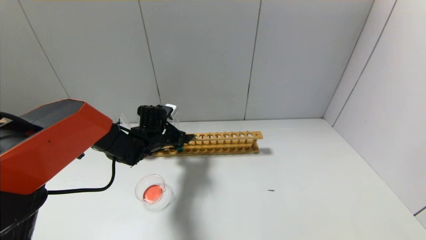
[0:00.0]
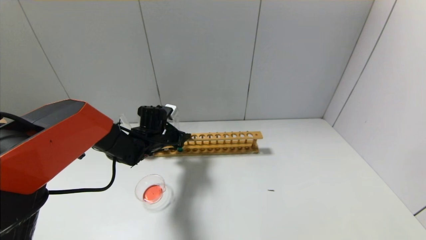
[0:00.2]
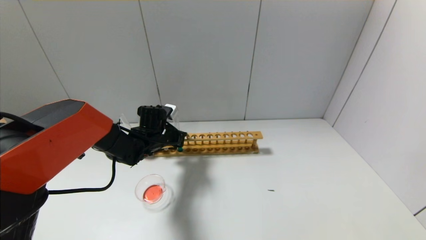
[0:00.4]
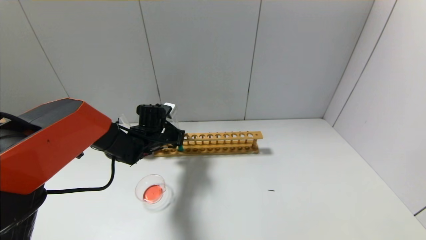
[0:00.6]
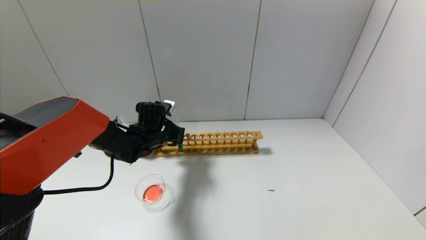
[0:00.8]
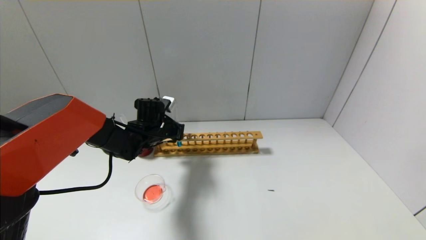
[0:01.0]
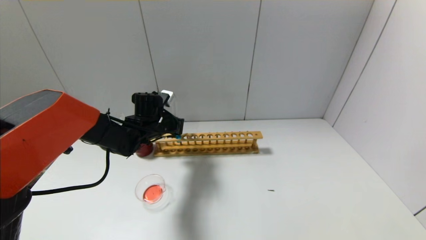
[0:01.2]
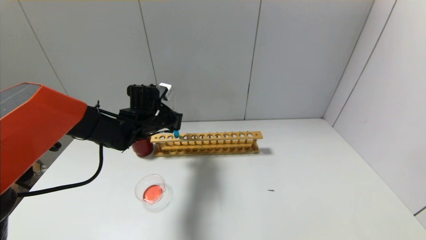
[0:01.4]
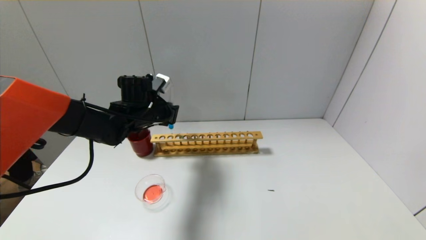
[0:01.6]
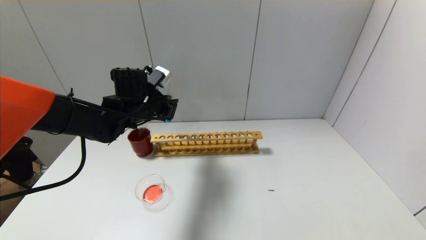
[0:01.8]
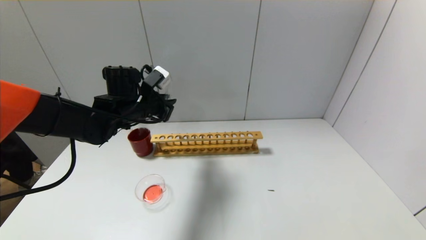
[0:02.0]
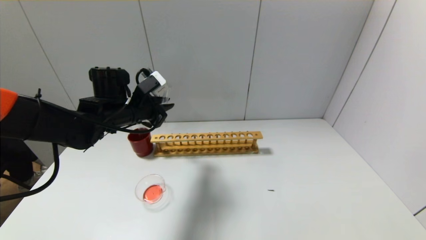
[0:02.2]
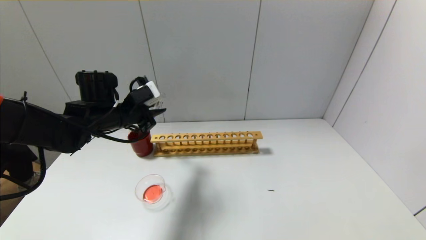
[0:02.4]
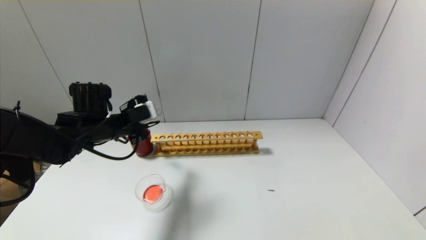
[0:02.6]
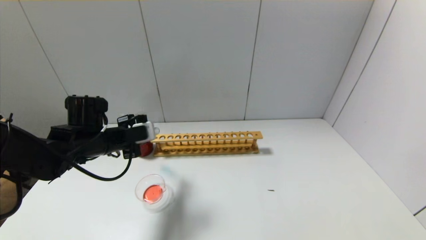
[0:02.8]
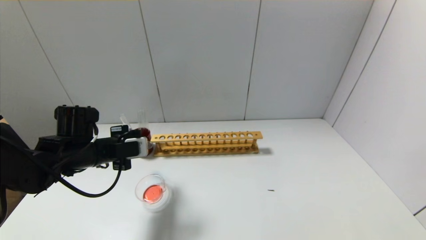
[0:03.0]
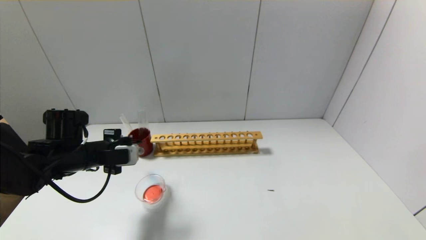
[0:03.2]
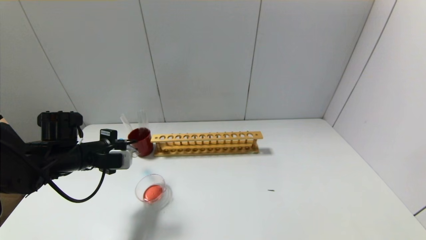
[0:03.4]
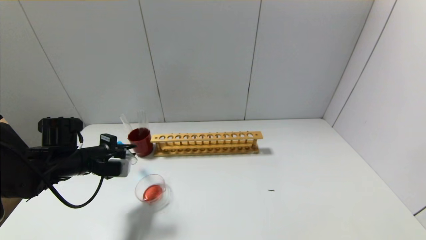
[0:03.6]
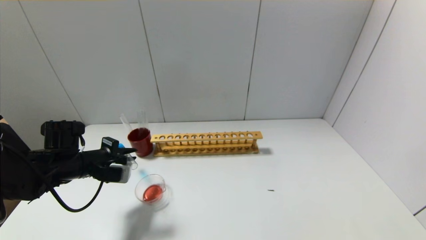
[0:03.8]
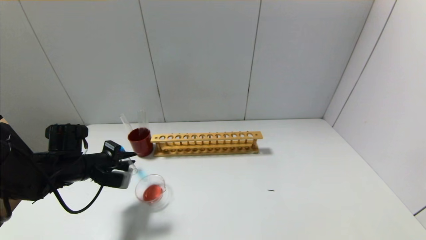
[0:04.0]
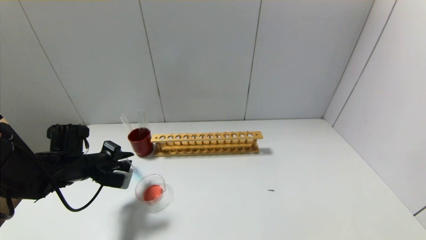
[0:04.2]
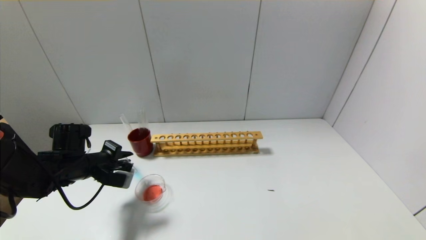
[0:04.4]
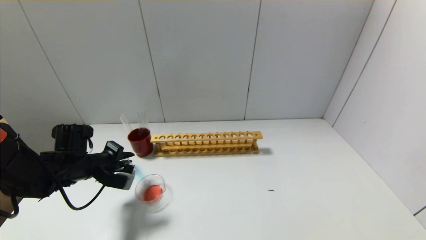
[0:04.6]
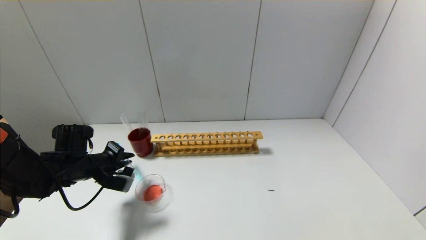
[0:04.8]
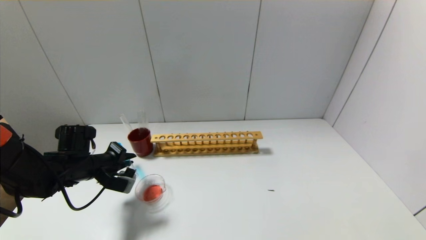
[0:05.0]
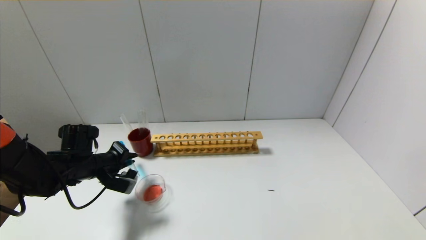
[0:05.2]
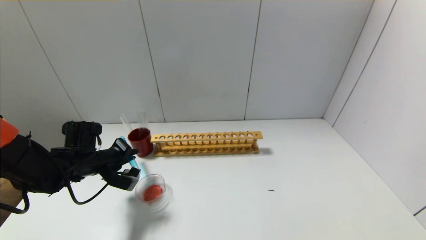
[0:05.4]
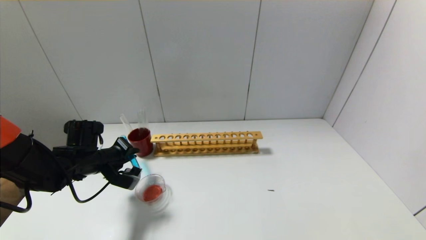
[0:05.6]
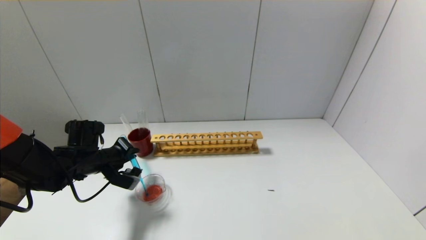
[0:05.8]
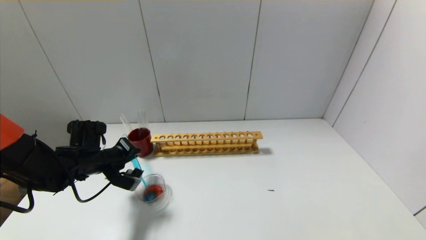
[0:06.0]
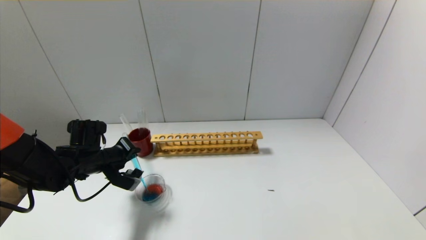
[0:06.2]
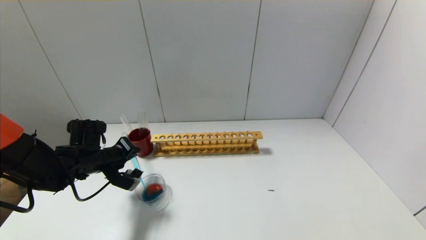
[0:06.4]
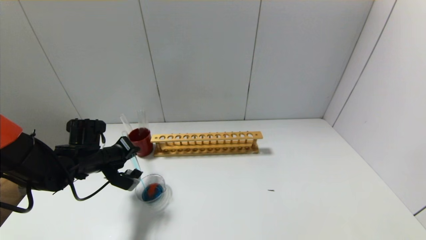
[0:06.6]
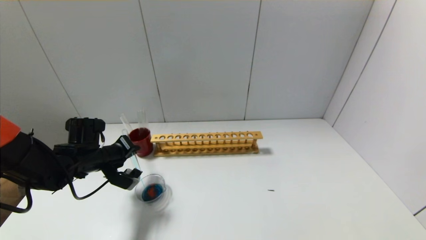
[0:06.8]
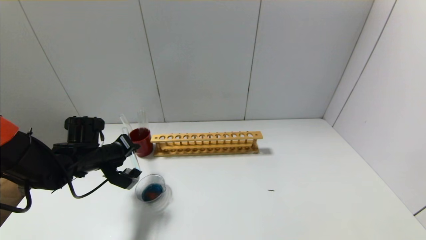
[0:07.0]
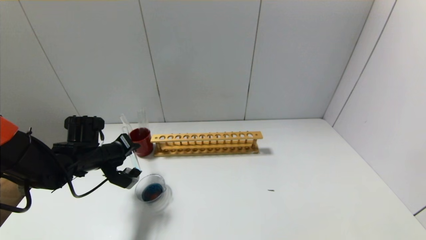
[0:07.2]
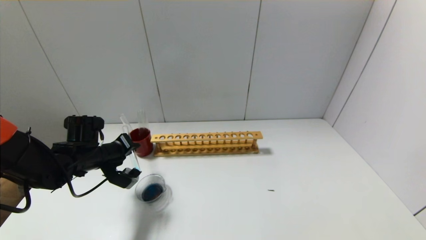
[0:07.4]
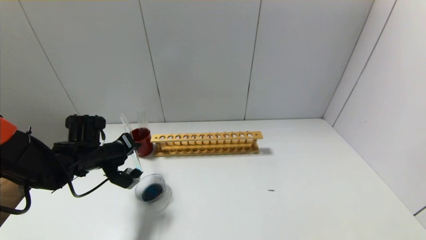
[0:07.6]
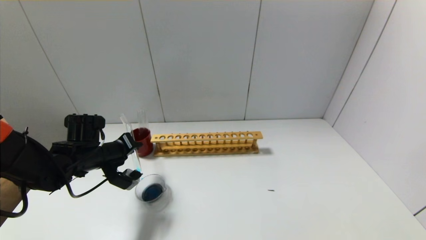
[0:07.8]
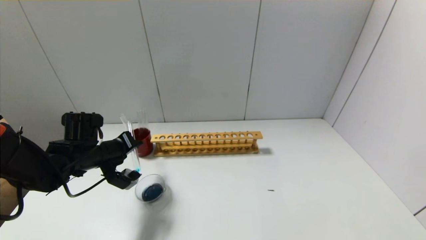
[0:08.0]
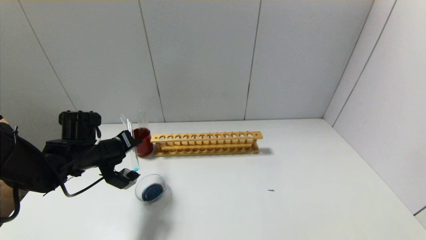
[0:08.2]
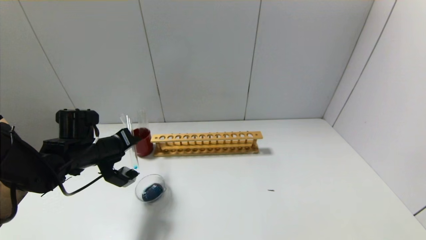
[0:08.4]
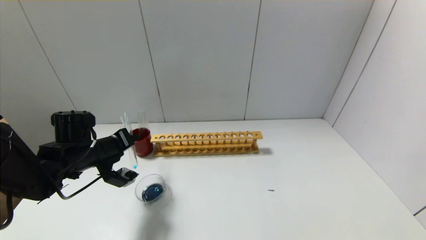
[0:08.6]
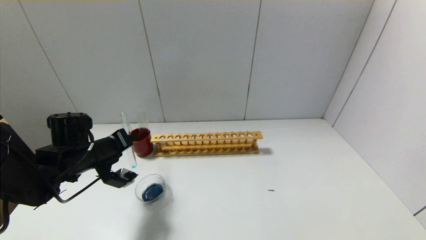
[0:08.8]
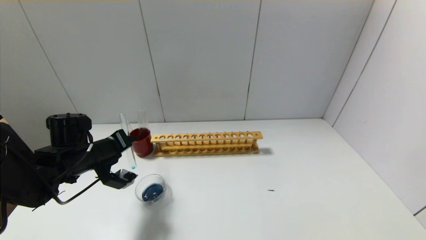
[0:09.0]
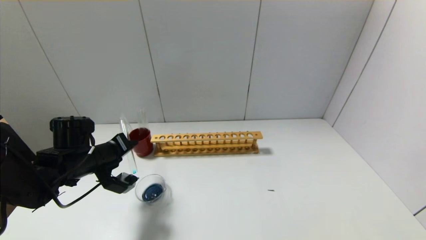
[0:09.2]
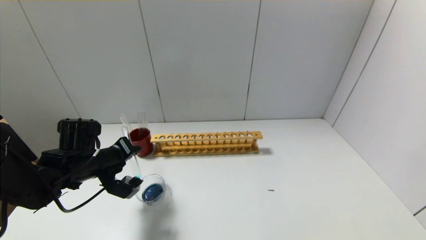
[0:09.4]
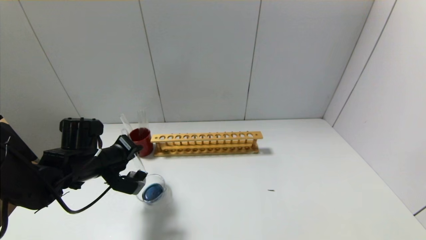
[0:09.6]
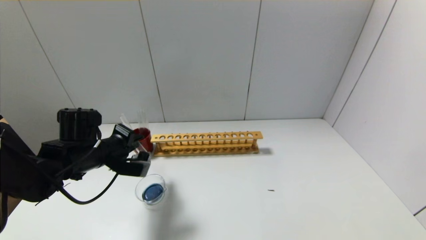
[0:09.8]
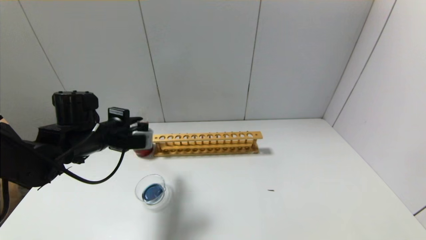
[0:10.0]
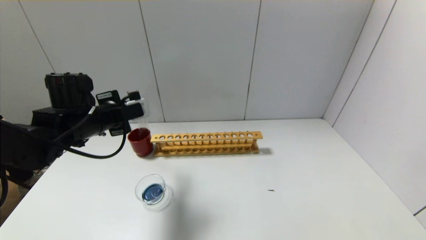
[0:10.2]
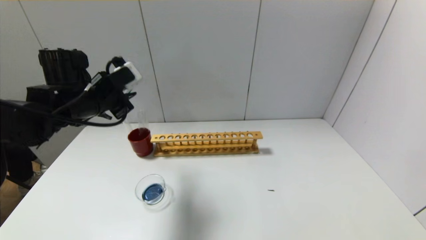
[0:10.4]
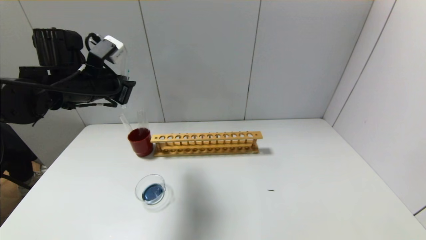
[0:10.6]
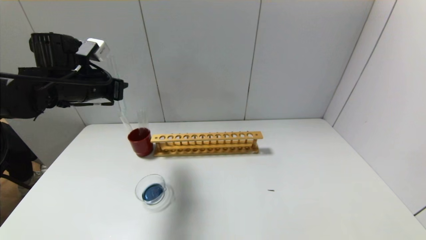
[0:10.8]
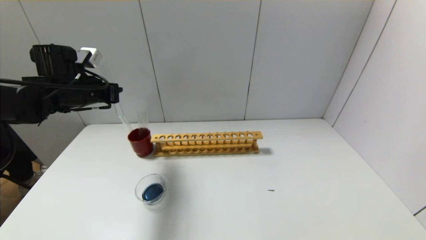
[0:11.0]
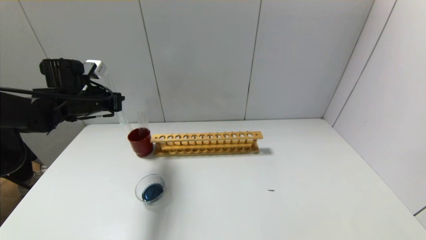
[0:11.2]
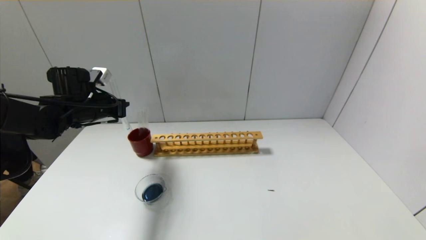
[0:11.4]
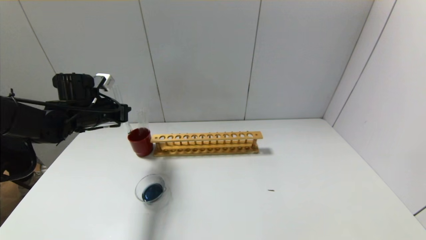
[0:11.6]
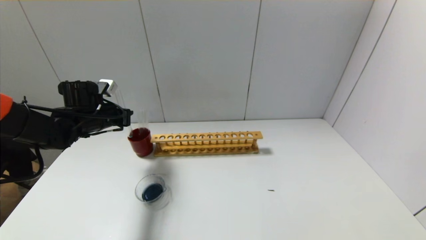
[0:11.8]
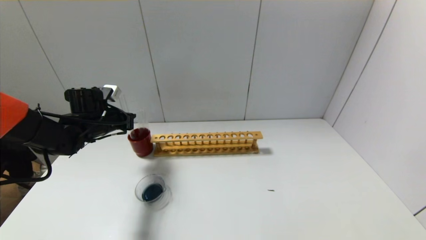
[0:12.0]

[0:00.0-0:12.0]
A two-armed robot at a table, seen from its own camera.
Step, 0:00.8 to 0:09.8: Pour the blue reagent into the graduated cylinder with the left gripper.
0:00.0 to 0:01.6: The left gripper heads upward, covering about 10 cm, and closes its fingers.
0:01.6 to 0:03.0: The left gripper heads backward and to the left, covering some 15 cm.
0:03.0 to 0:04.4: The left gripper travels downward by about 5 cm.
0:04.4 to 0:06.0: The grippers make only small movements.
0:06.0 to 0:07.6: The grippers move only a little.
0:07.6 to 0:09.0: The grippers stay close to where they were, moving slightly.
0:09.0 to 0:10.4: The left gripper shifts about 15 cm upward.
0:10.4 to 0:12.0: The left gripper moves downward and forward, about 15 cm.

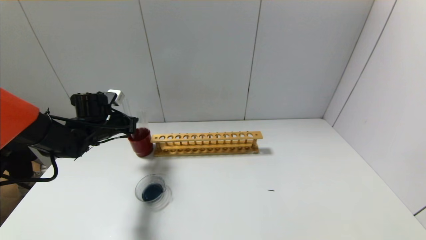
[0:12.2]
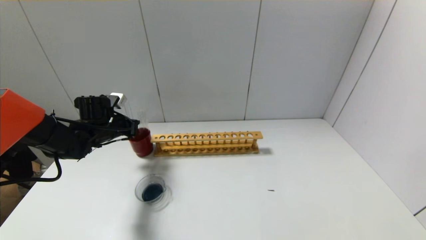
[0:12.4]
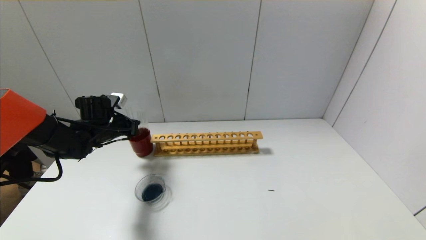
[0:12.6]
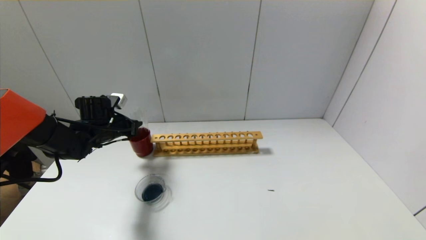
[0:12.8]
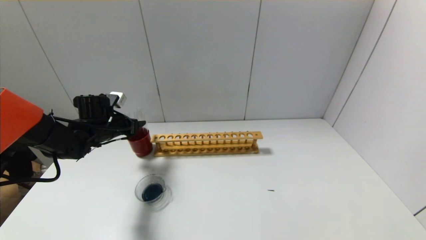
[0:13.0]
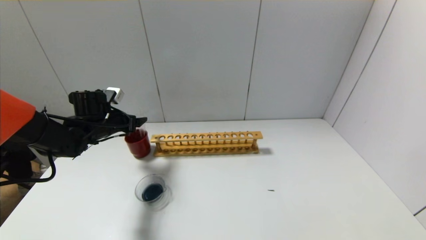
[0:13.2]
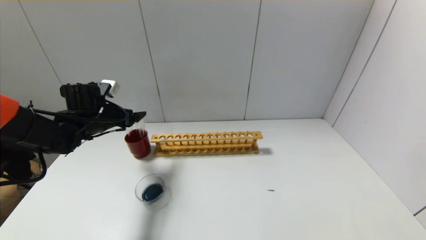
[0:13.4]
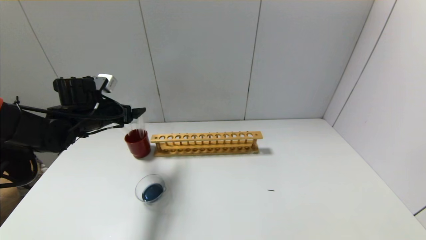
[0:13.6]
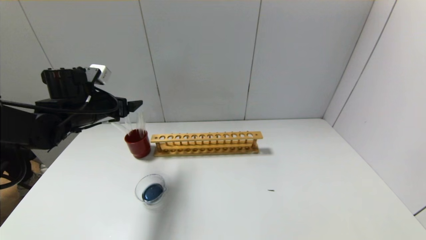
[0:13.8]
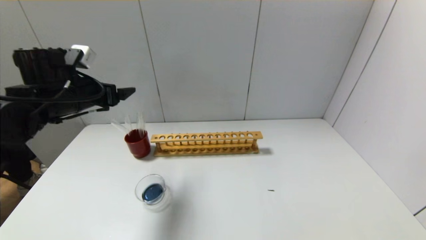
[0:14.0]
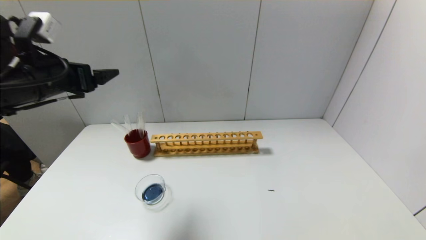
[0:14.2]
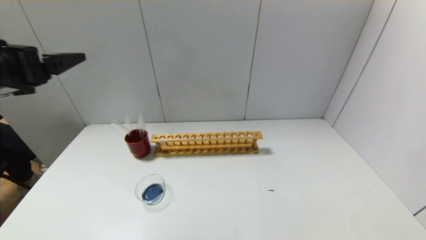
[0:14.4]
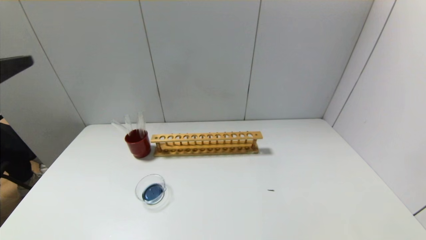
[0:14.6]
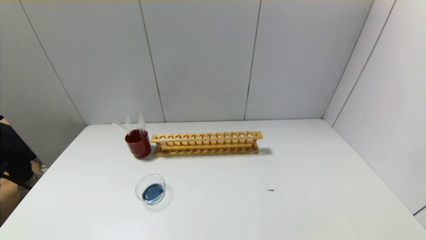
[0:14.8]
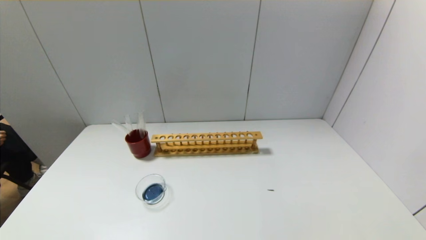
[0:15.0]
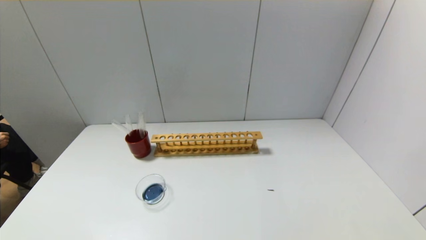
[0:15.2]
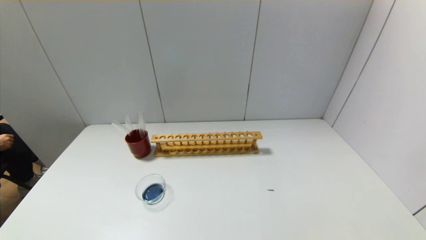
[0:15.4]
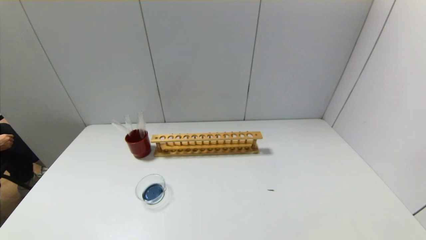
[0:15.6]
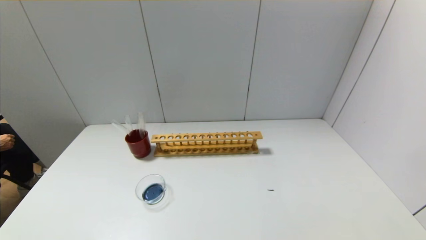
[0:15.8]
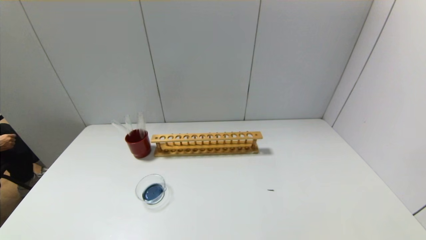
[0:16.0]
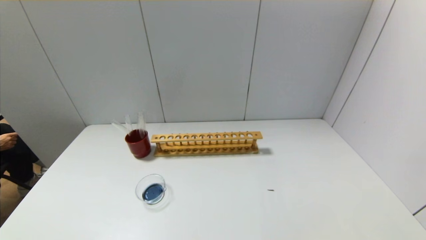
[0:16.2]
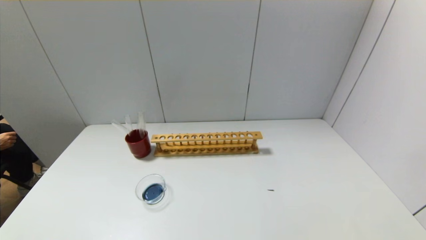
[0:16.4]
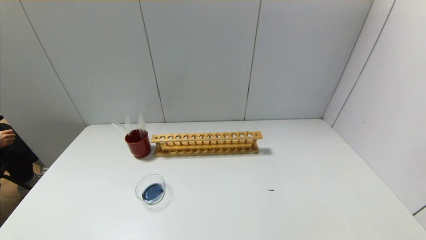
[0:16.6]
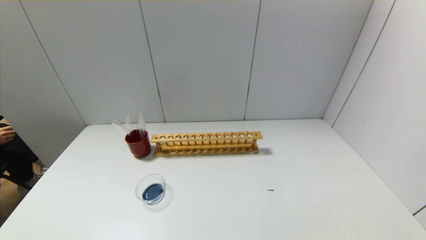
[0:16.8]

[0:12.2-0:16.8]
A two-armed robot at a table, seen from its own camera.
0:12.2 to 0:13.8: The left gripper goes approximately 10 cm upward, and opens.
0:13.8 to 0:15.2: The left gripper goes about 40 cm backward.
